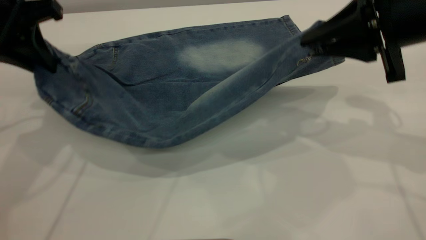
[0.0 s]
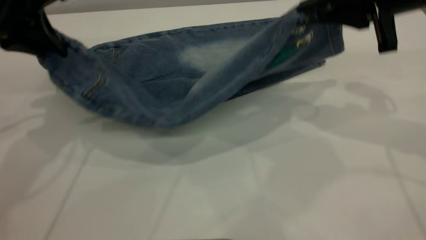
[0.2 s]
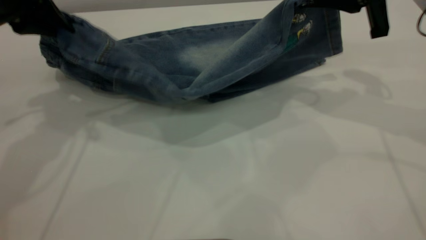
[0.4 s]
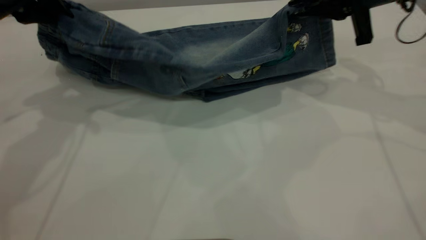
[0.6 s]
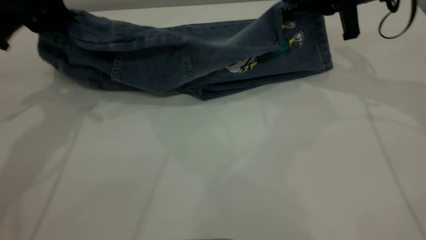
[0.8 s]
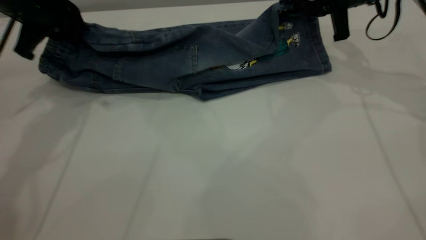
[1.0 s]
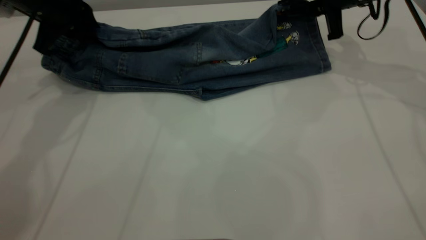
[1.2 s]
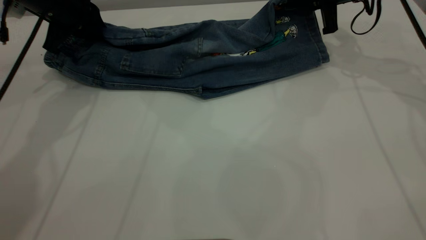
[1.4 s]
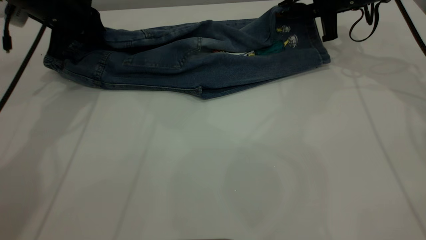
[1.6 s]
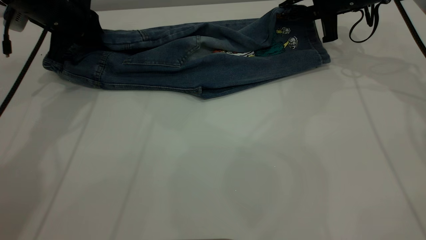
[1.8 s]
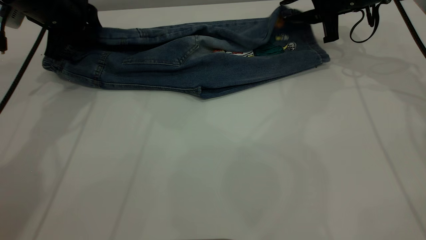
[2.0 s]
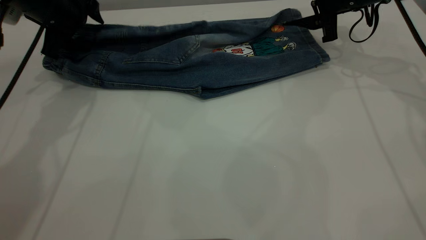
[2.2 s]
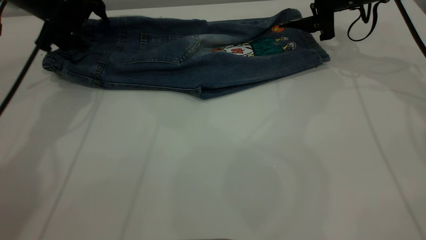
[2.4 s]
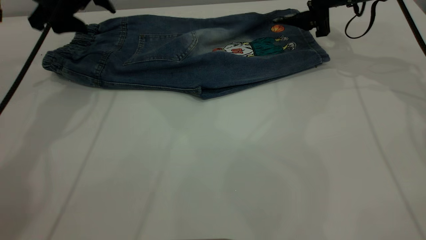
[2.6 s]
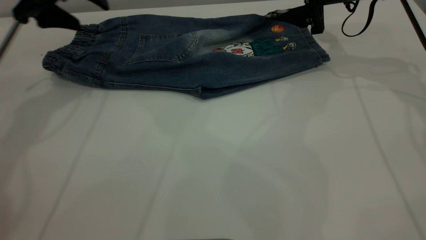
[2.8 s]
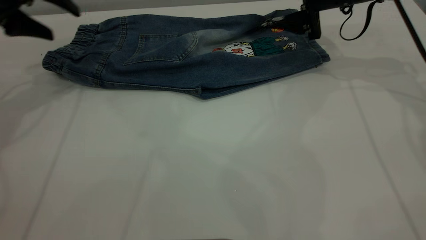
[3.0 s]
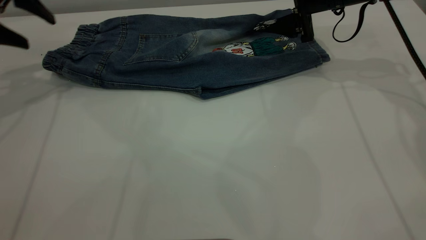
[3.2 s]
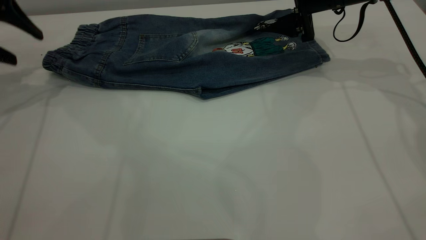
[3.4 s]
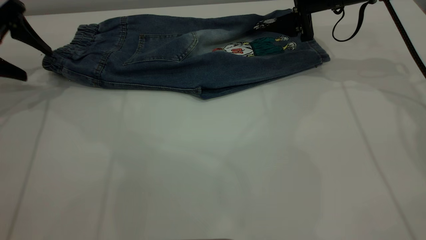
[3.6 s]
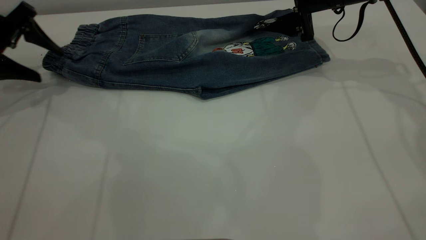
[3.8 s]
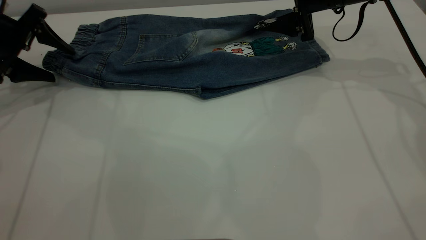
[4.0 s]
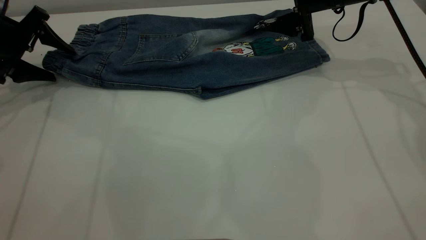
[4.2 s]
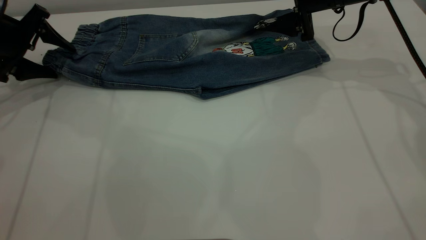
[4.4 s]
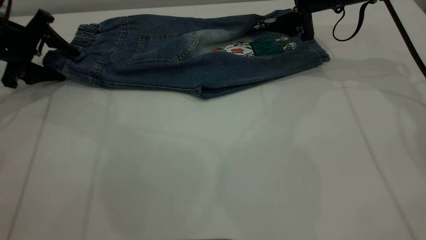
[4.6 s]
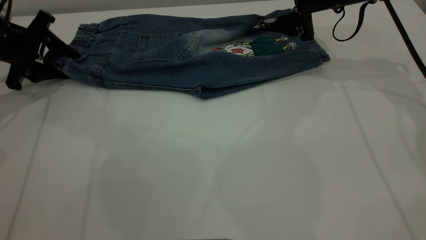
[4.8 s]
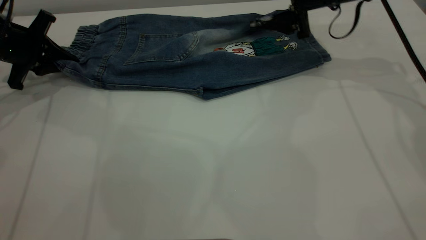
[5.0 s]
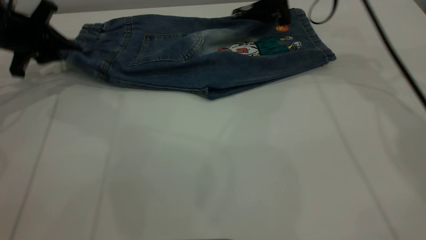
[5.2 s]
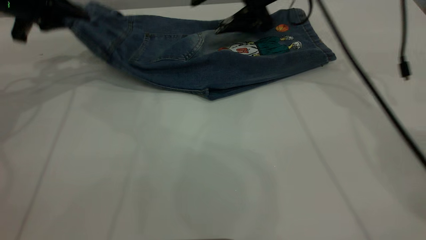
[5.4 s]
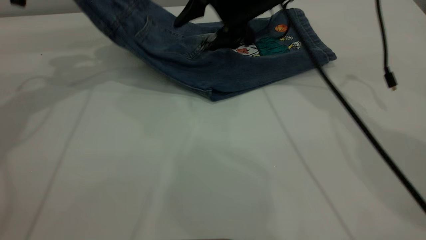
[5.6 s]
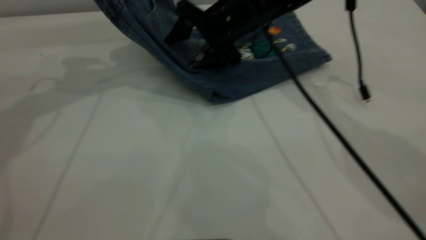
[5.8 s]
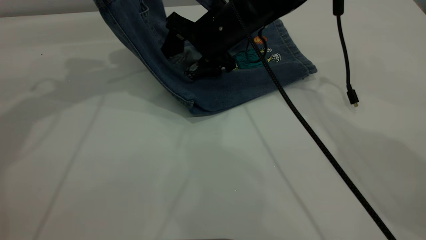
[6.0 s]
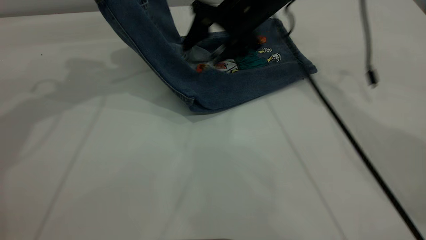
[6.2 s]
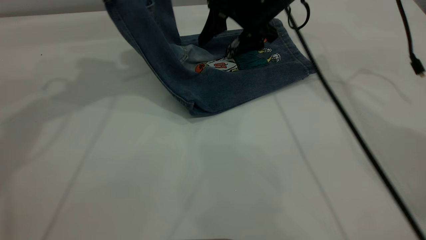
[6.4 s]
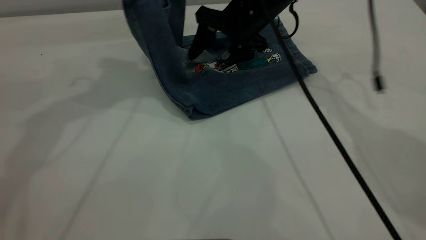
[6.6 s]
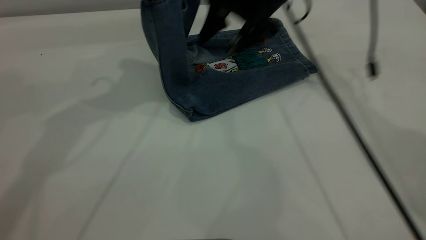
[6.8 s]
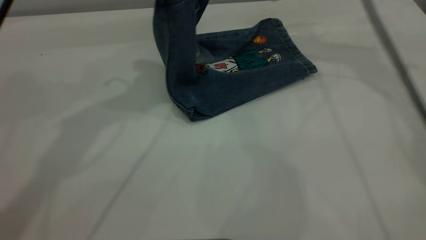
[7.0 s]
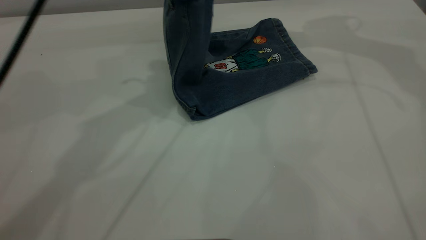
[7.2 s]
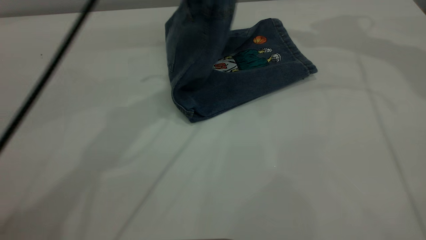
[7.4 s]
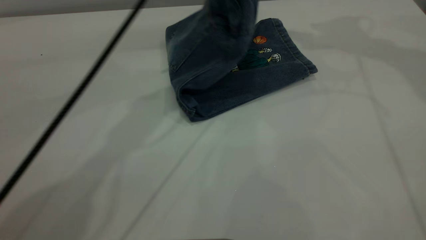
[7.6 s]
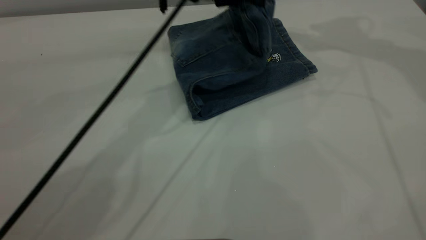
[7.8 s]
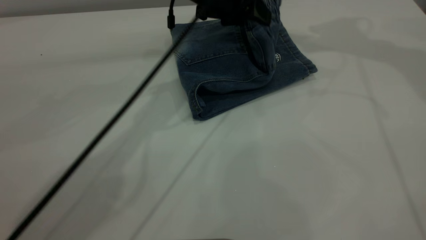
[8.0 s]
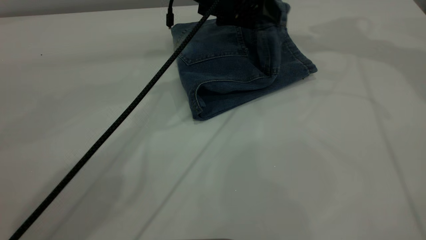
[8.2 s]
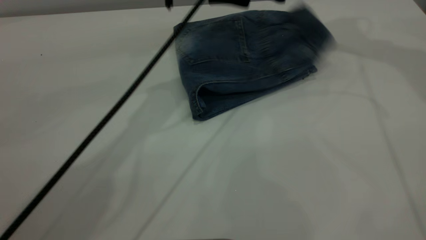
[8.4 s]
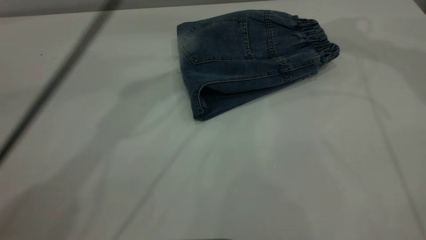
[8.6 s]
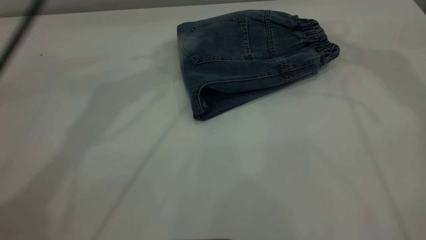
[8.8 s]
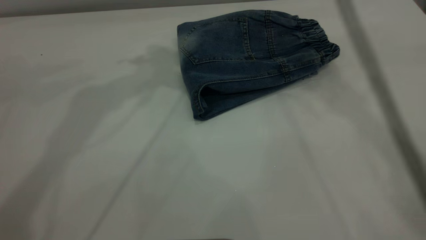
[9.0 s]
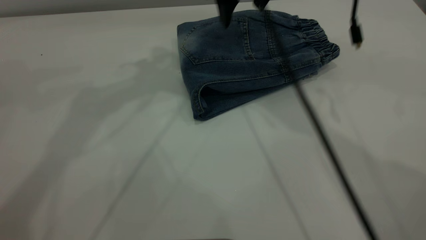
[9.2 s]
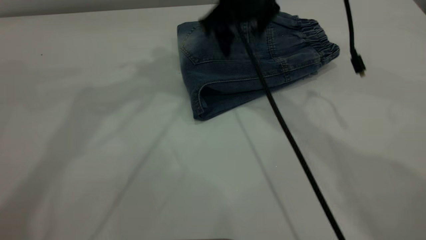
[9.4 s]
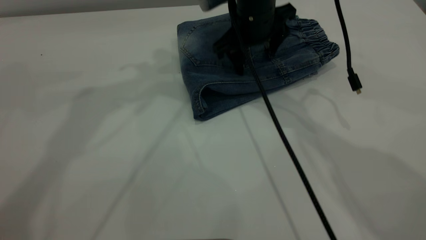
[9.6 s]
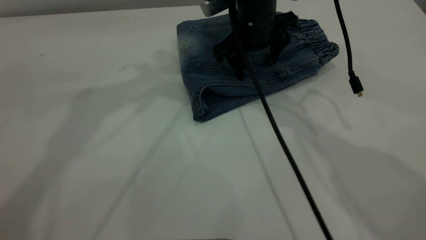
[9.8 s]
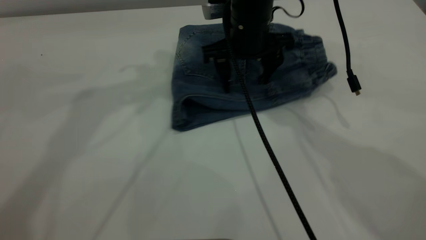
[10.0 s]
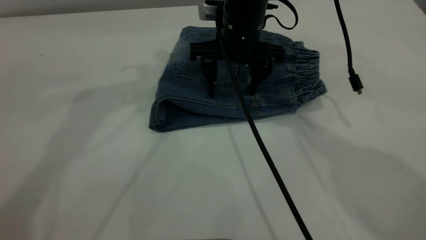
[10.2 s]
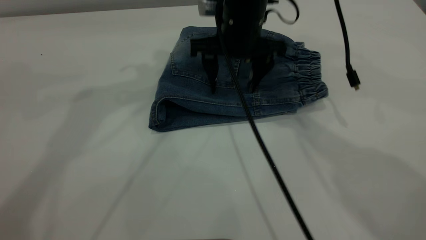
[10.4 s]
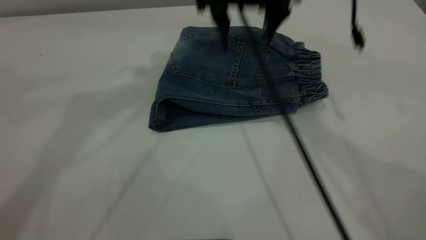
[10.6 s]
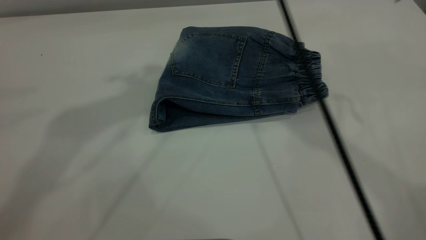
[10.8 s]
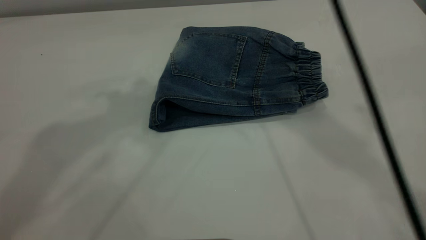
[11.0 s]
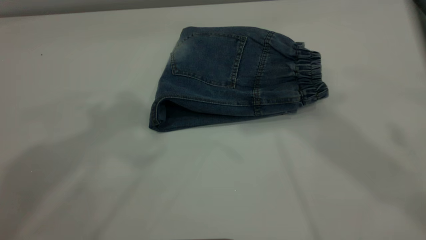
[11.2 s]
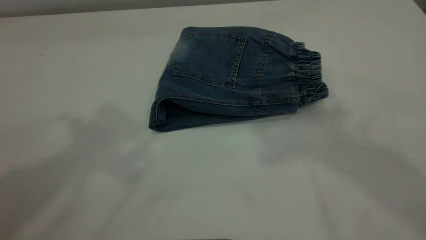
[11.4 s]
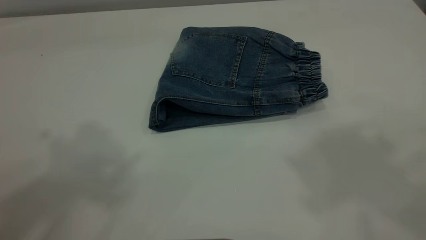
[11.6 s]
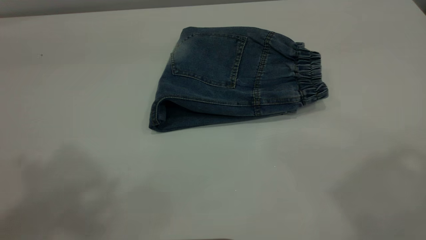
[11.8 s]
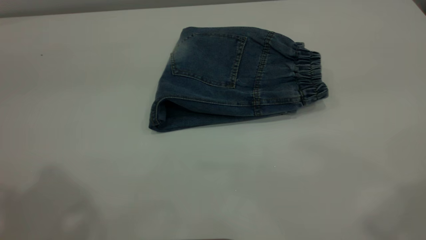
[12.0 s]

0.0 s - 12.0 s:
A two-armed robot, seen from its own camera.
Step, 0.0 s - 3.0 s: Fold the bottom of the pants upward.
Step, 3.2 s - 8.6 s: Fold the pants from left to right.
0.0 s - 1.6 s: The left gripper is displaced forward and downward by approximately 15 cm. Meanwhile the right gripper goes roughly 20 cm forward.
1.6 s - 3.0 s: The right gripper opens, while the left gripper moves to the left and upward, approximately 10 cm, and opens its fingers.
3.0 s - 4.4 s: The left gripper shifts about 10 cm downward.
4.4 s - 6.0 s: The left gripper goes approximately 20 cm upward and to the right, and closes up. The right gripper is displaced to the left by some 15 cm.
6.0 s - 7.6 s: The right gripper heads upward and to the right, covering approximately 30 cm; the left gripper shifts approximately 20 cm to the right.
7.6 s - 9.0 s: The left gripper heads upward and to the left, covering approximately 20 cm, and opens, while the right gripper shifts roughly 15 cm to the left and downward.
9.0 s - 10.4 s: The right gripper is displaced downward and to the left by some 15 cm.
10.4 s - 12.0 s: The left gripper goes about 25 cm backward. The right gripper goes about 40 cm backward, upward and to the right.
